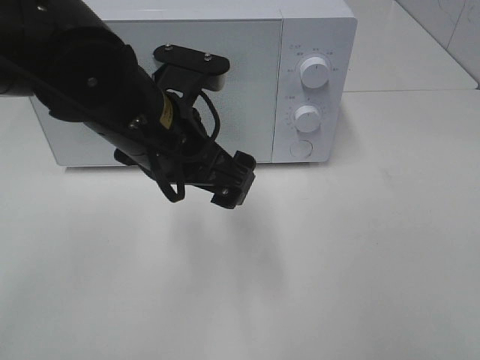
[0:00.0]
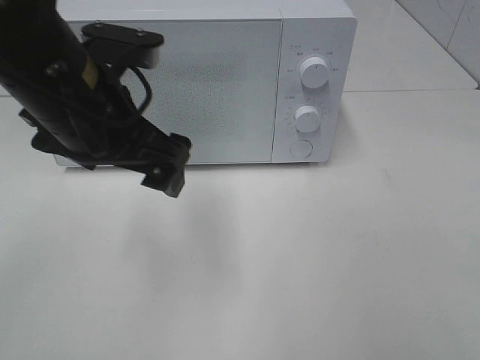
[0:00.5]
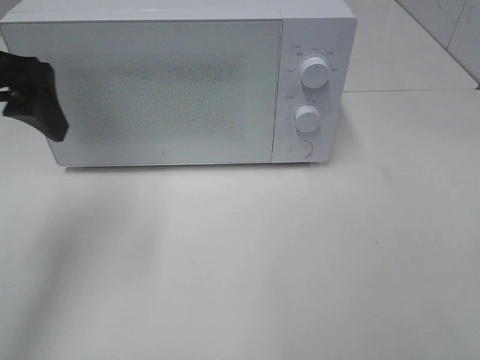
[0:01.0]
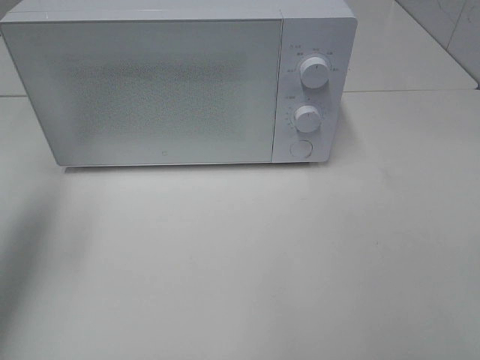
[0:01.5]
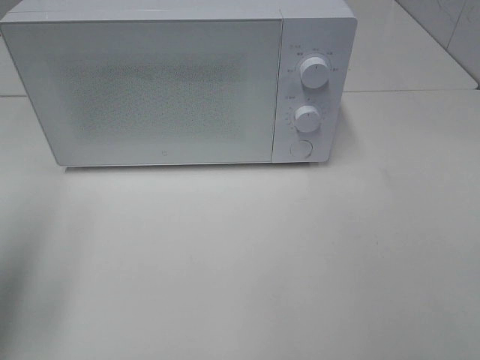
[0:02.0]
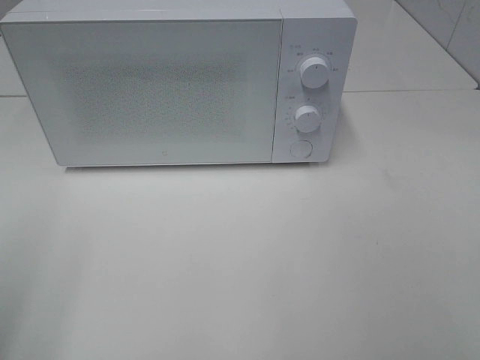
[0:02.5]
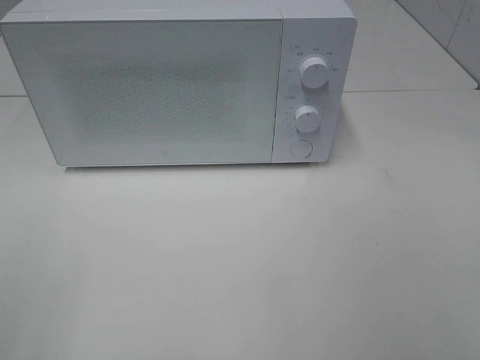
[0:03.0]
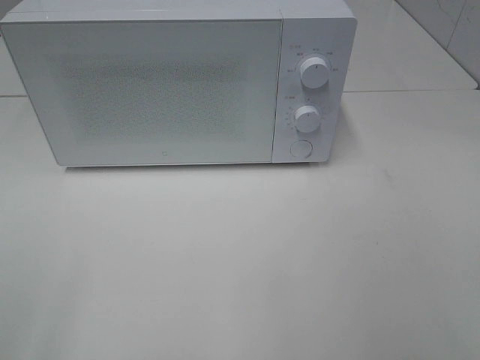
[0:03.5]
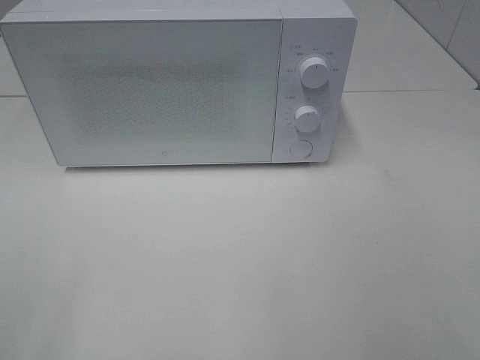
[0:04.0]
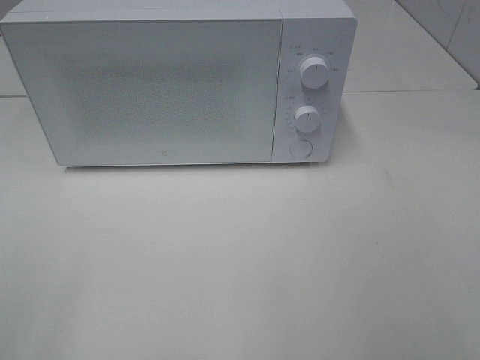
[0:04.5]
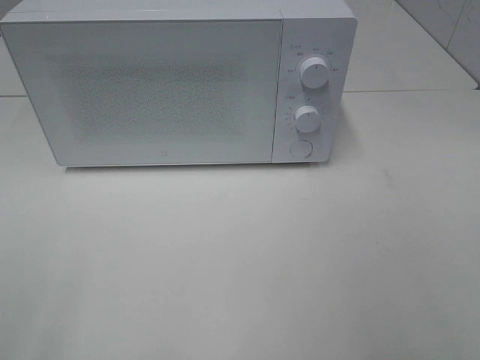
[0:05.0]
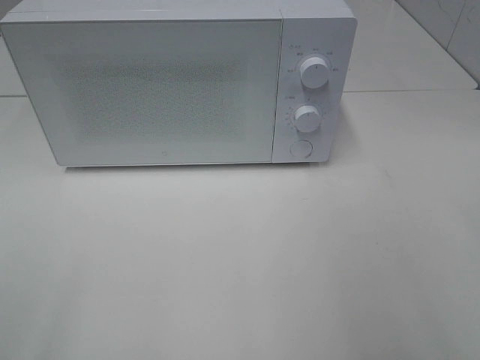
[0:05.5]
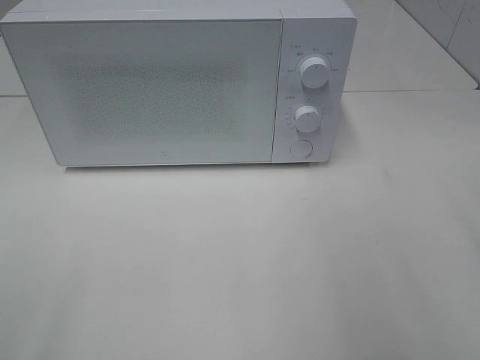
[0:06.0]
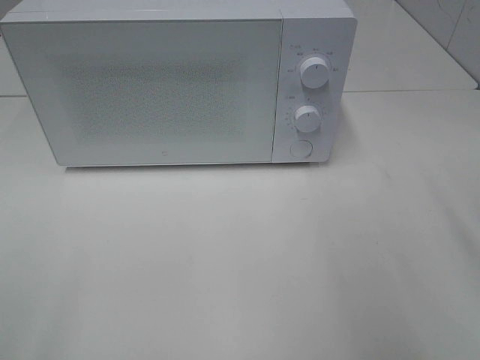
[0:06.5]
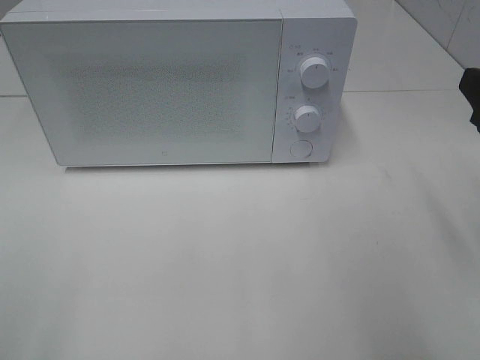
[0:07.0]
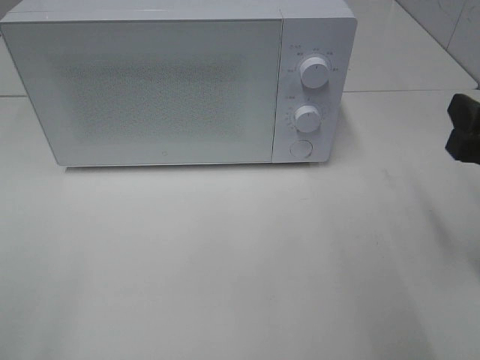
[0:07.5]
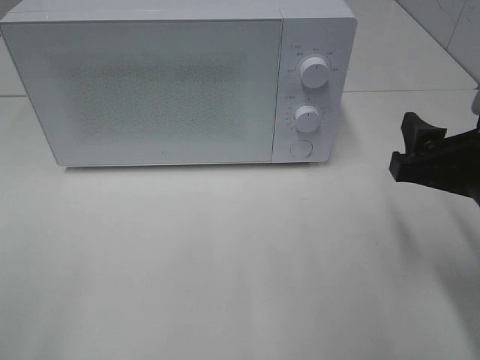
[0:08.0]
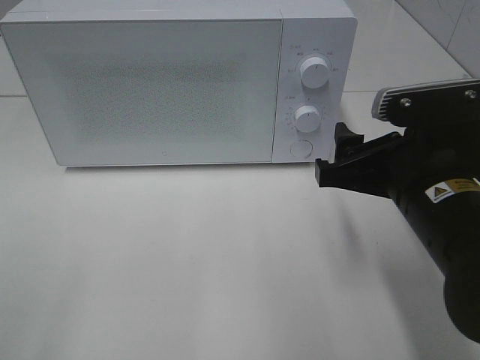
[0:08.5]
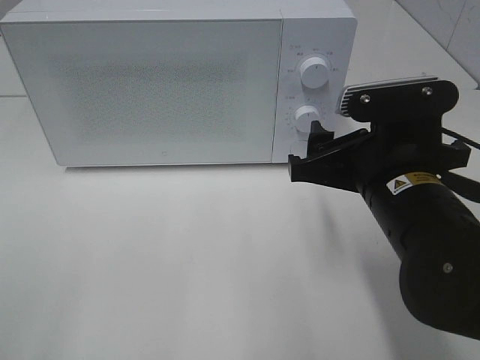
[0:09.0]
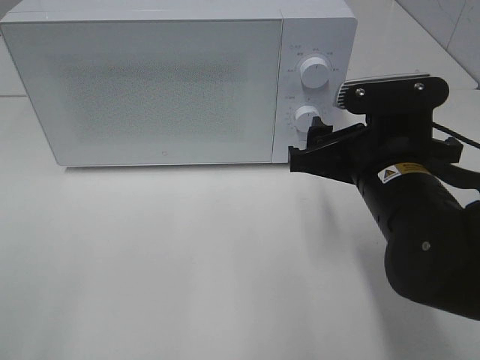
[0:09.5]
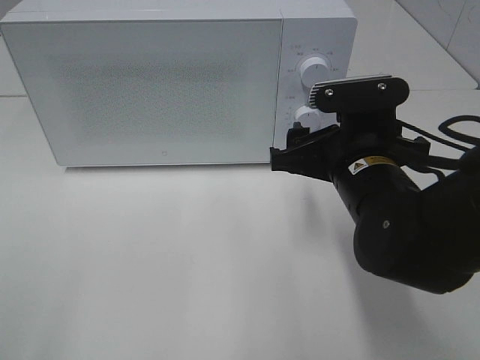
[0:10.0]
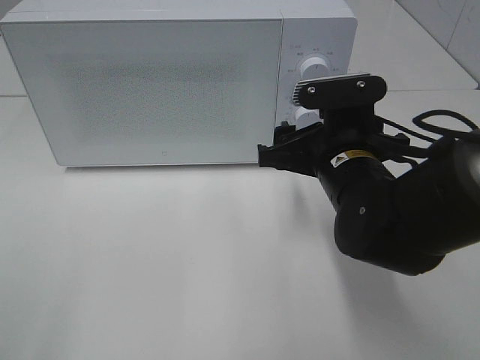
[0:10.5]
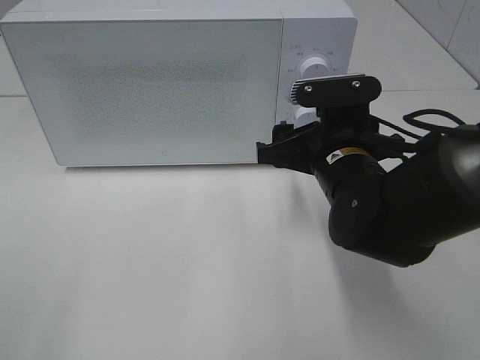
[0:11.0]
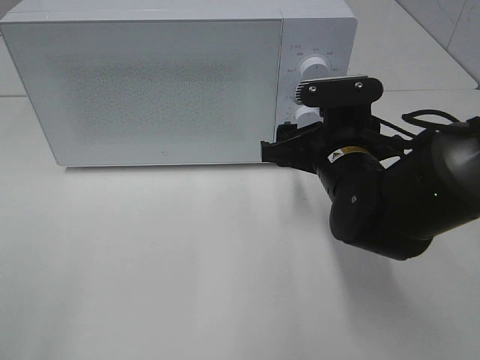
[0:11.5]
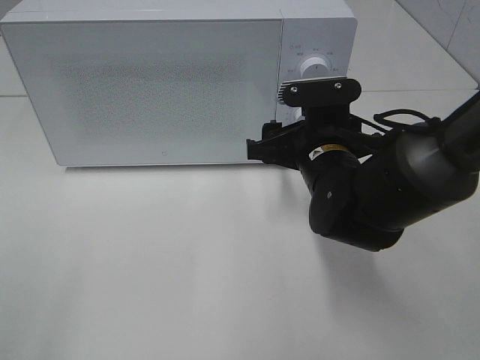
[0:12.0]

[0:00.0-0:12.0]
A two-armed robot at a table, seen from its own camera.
Task of the whole recording: Heat the burger.
0:00.0 to 0:02.0: The left gripper heads to the left, covering about 25 cm.
0:02.0 to 0:04.0: The left gripper shifts approximately 20 cm backward.
0:06.0 to 0:08.0: The right gripper shifts about 15 cm downward and to the left.
0:08.0 to 0:10.0: The right gripper goes about 10 cm to the left and forward.
0:10.0 to 0:12.0: The right gripper is displaced forward by roughly 5 cm.

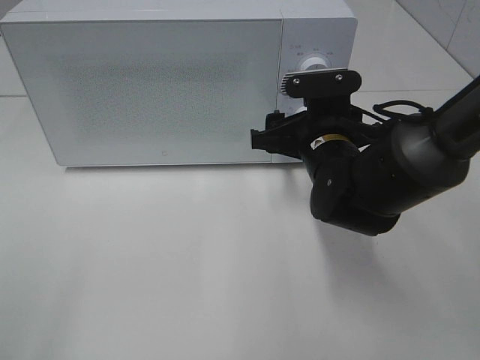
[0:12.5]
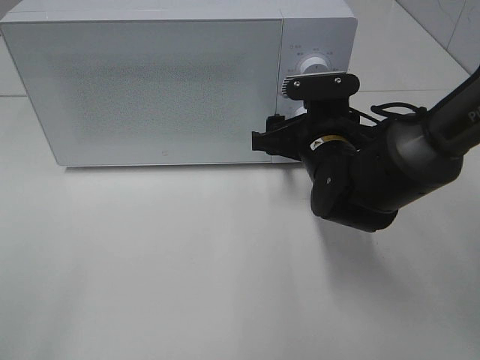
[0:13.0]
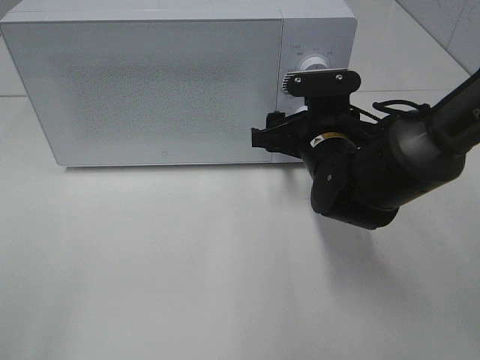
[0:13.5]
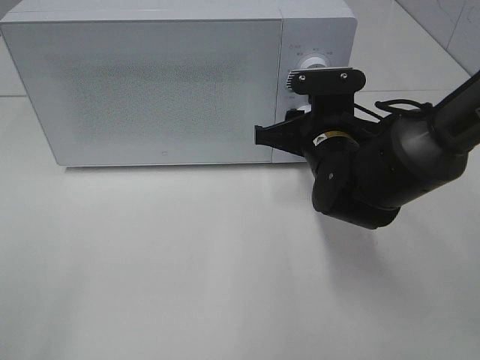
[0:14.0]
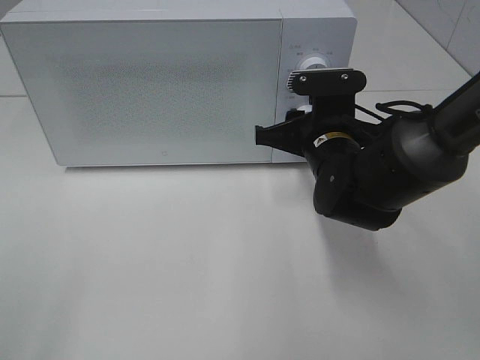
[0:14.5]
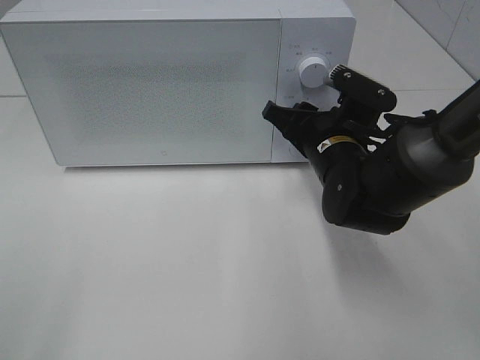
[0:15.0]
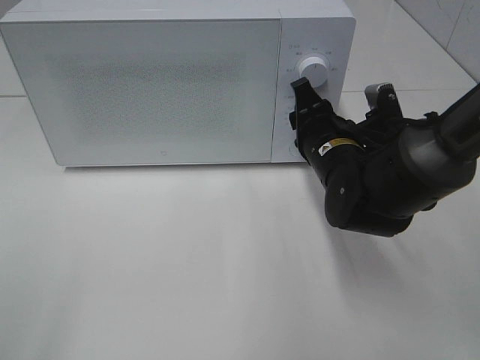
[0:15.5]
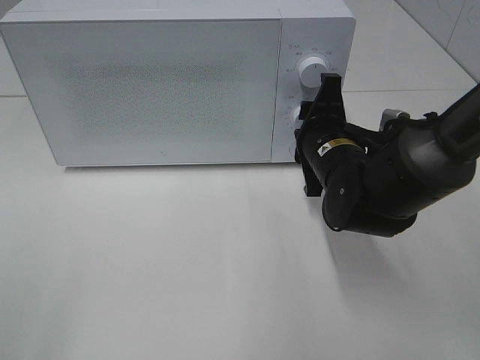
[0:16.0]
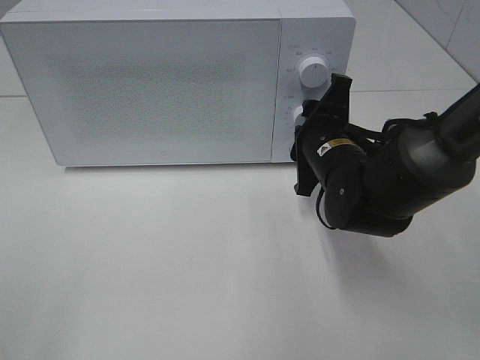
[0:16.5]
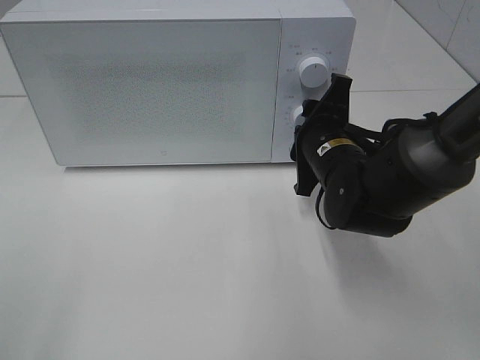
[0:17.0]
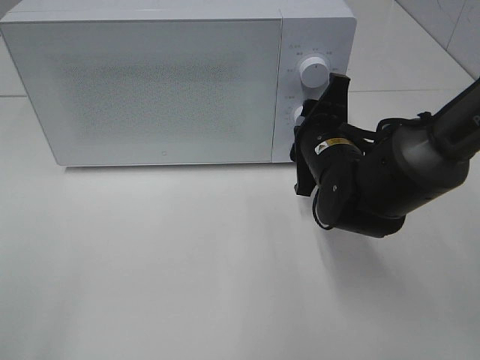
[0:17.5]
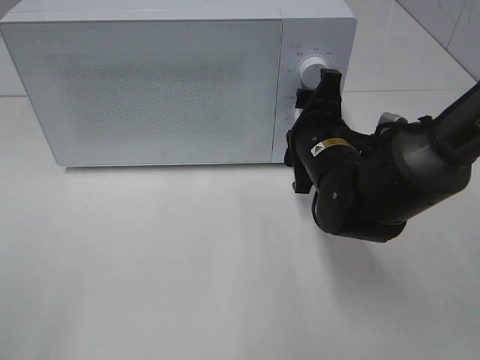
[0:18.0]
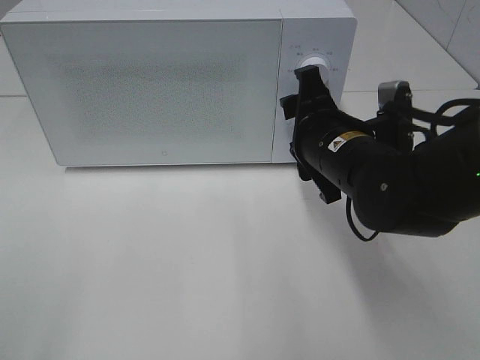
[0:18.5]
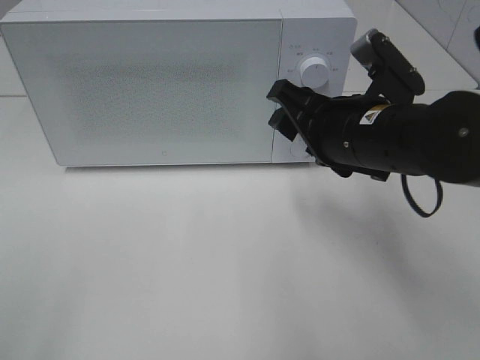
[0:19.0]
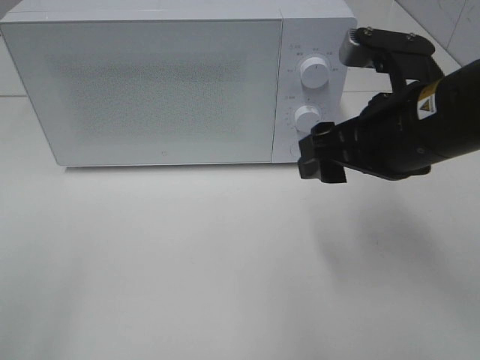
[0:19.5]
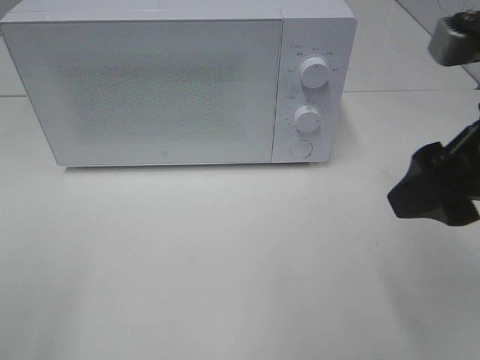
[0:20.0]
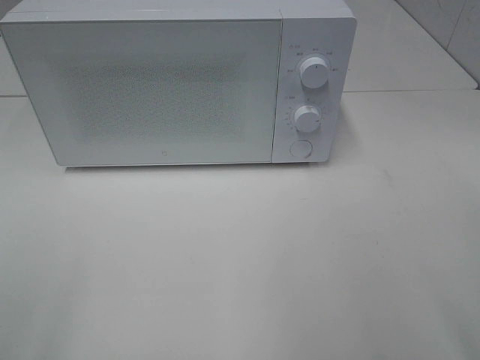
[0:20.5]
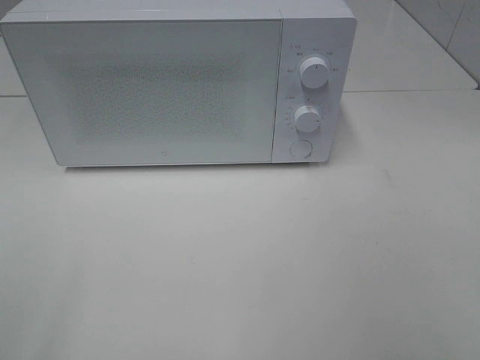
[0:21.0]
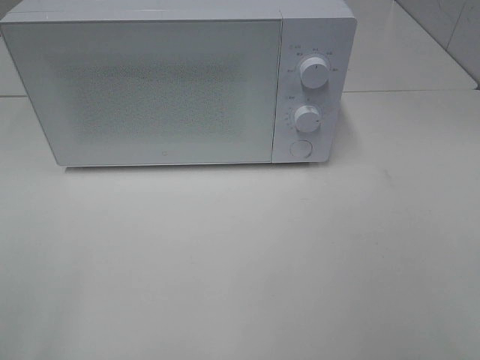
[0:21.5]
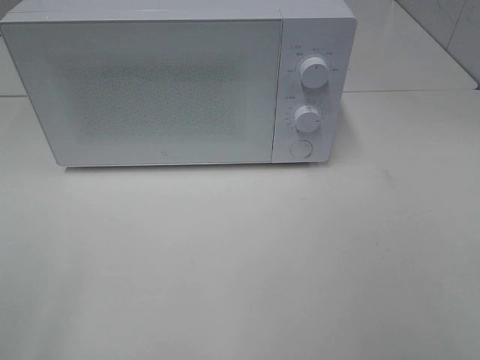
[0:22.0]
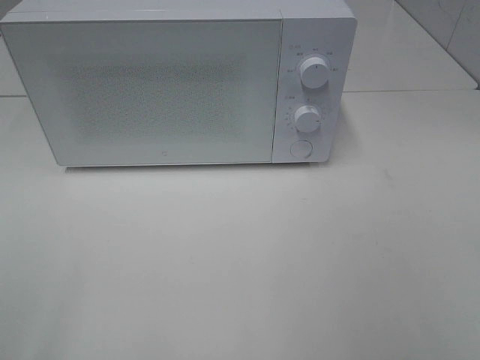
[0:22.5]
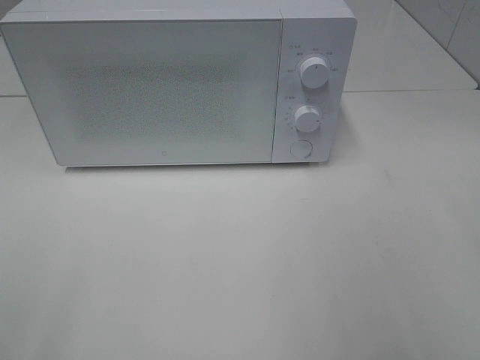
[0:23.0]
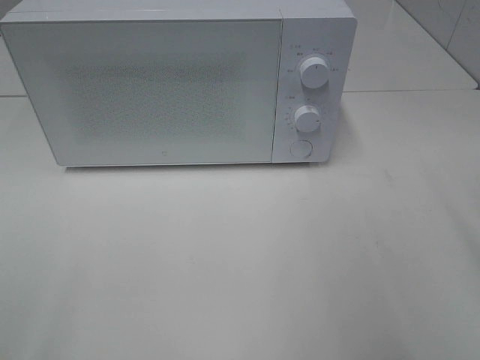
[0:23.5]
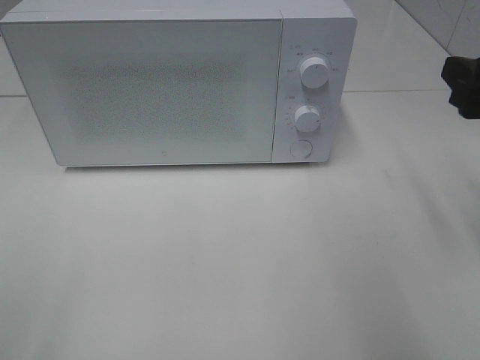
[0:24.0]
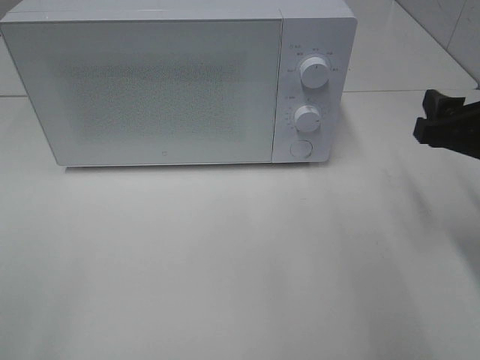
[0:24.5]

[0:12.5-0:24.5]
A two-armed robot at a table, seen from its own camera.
Task of the whole recording: Heat the burger.
Step, 0:12.5 to 0:18.0: Right hand: twist timer button.
0:12.5 to 0:14.5: The right gripper closes its fingers.
0:16.5 to 0:18.5: The right gripper moves about 5 cm.
0:18.5 to 0:20.5: The right gripper is displaced backward, upward and to the right by roughly 30 cm.
0:22.5 to 0:24.5: The right gripper heads forward and downward, covering about 25 cm.

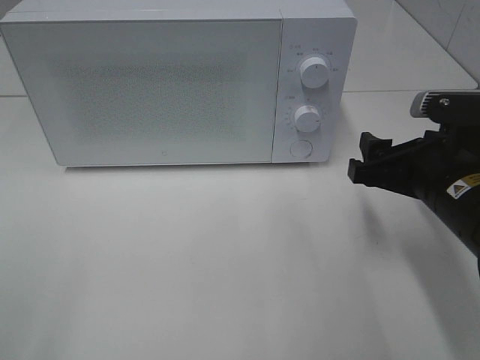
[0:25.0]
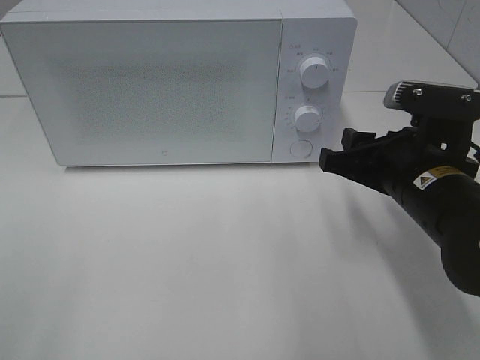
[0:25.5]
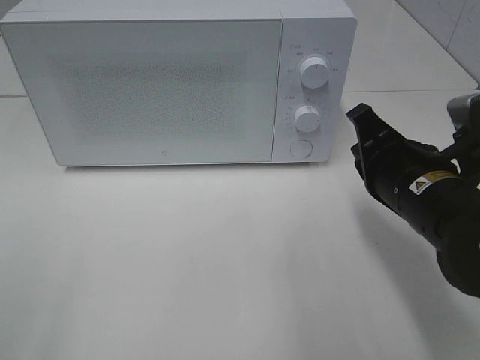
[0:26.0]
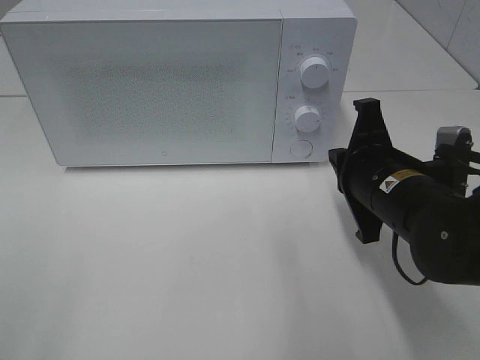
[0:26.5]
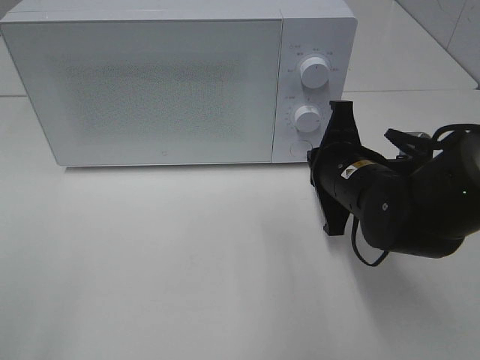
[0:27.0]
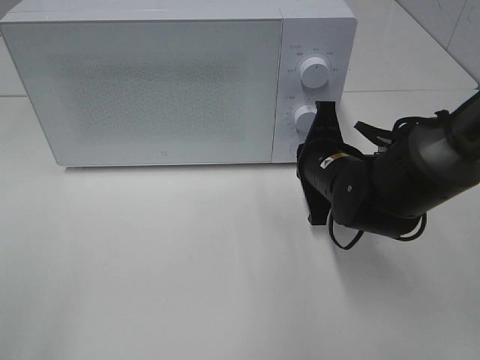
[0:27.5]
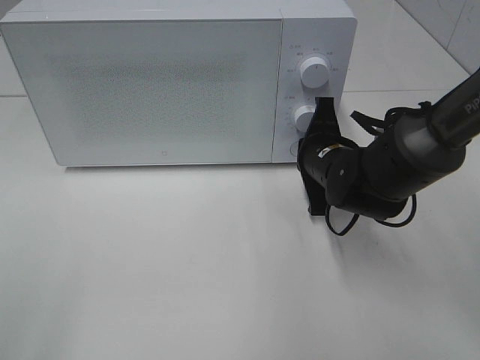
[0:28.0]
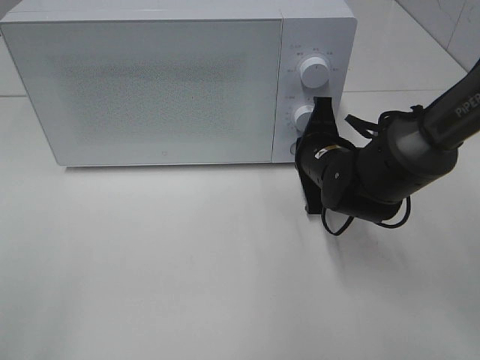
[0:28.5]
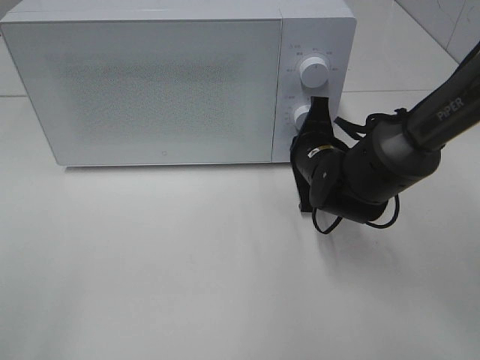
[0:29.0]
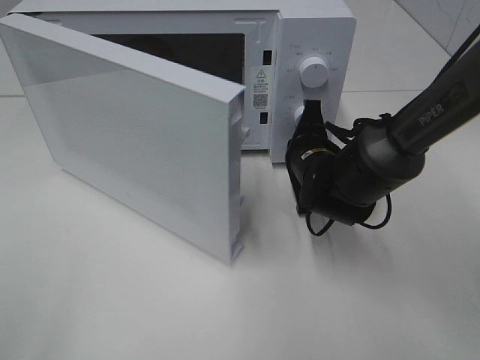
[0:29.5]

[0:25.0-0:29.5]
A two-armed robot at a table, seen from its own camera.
Task of the whole recording: Heat the burger.
0:25.0 to 0:27.0: The right gripper goes approximately 10 cm to the left and forward, and closes its fingers.
0:27.0 to 0:29.5: The right gripper heads forward, covering about 5 cm.
